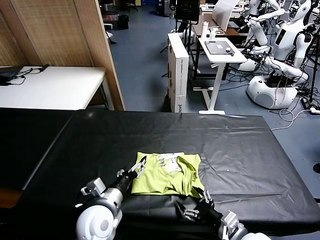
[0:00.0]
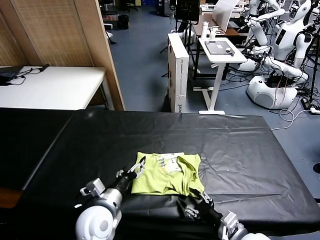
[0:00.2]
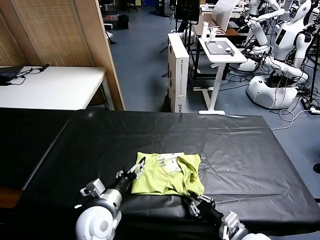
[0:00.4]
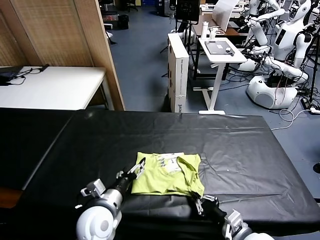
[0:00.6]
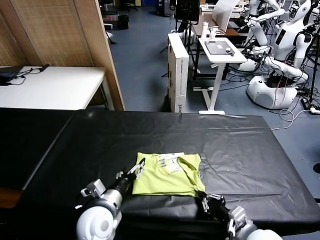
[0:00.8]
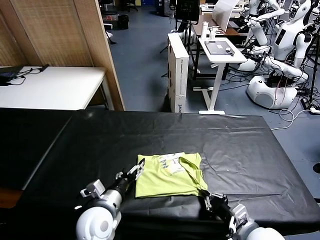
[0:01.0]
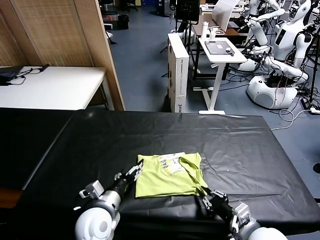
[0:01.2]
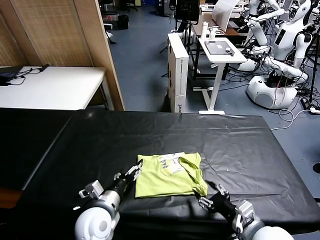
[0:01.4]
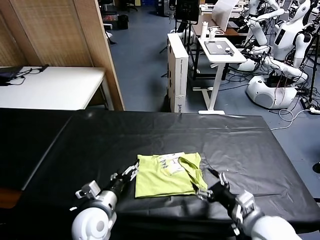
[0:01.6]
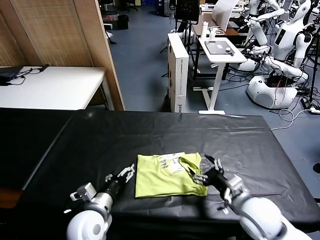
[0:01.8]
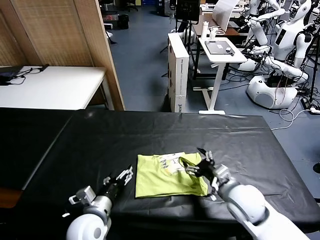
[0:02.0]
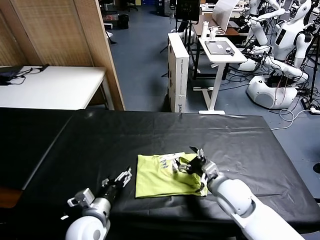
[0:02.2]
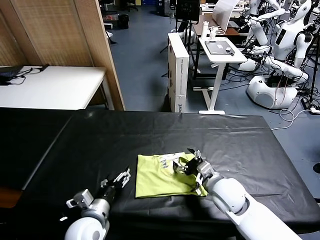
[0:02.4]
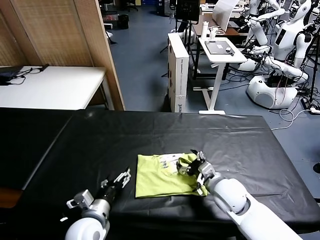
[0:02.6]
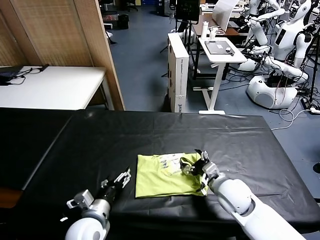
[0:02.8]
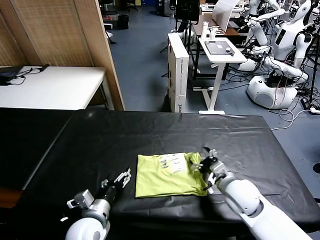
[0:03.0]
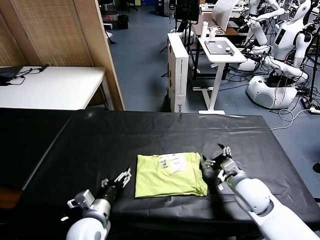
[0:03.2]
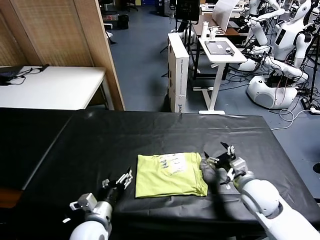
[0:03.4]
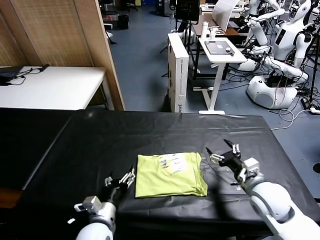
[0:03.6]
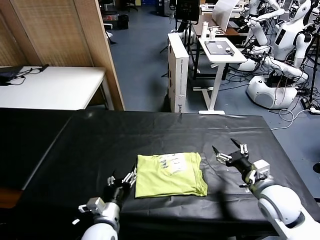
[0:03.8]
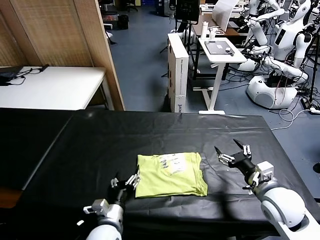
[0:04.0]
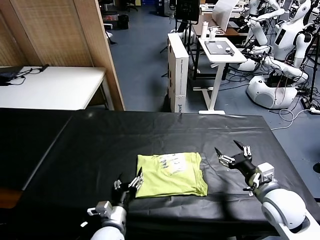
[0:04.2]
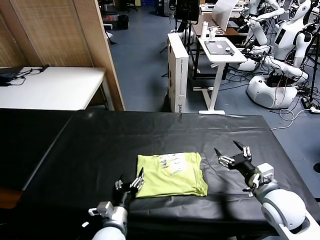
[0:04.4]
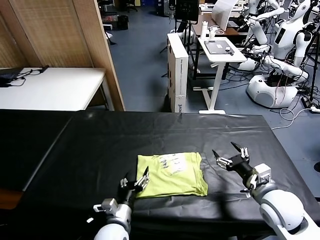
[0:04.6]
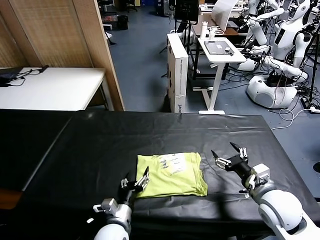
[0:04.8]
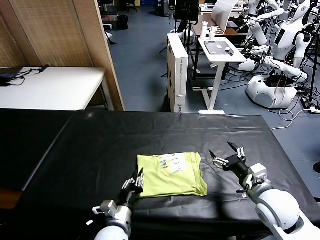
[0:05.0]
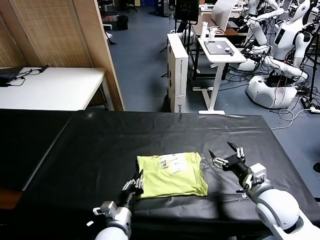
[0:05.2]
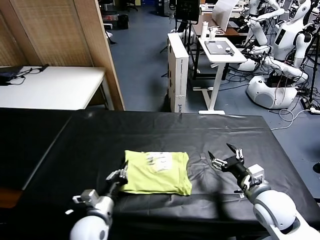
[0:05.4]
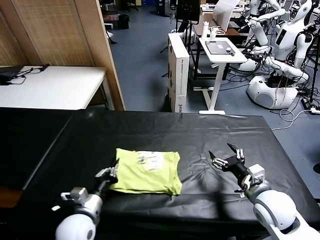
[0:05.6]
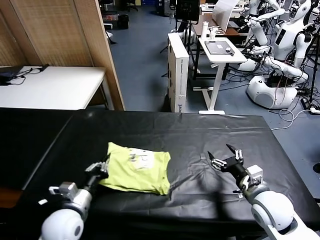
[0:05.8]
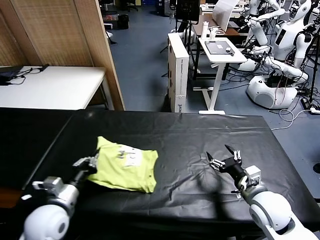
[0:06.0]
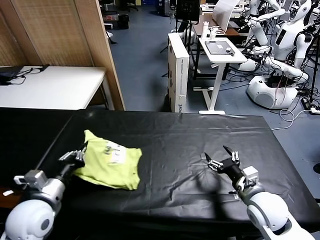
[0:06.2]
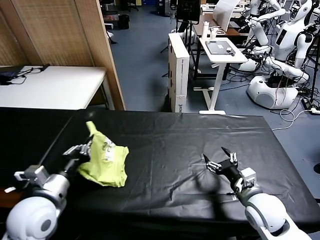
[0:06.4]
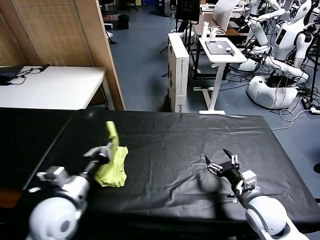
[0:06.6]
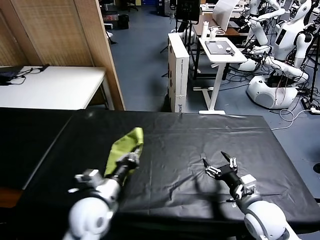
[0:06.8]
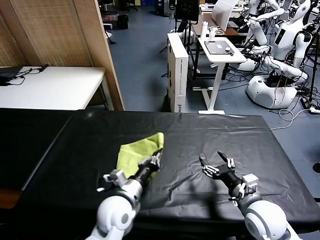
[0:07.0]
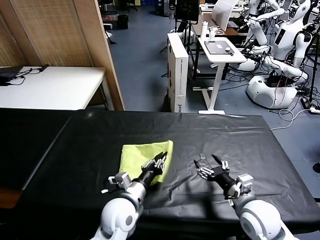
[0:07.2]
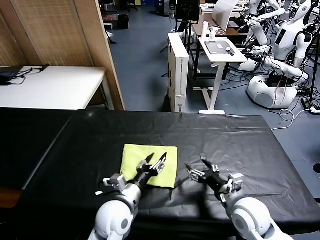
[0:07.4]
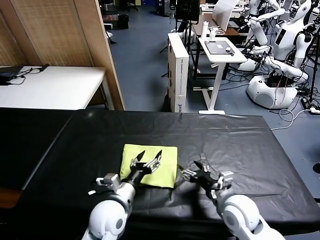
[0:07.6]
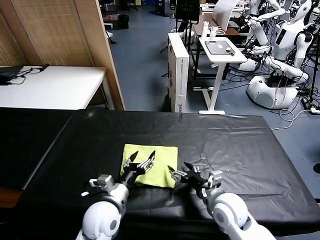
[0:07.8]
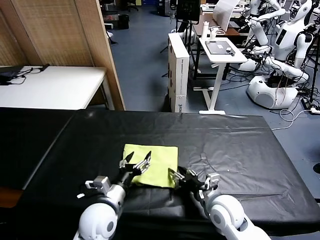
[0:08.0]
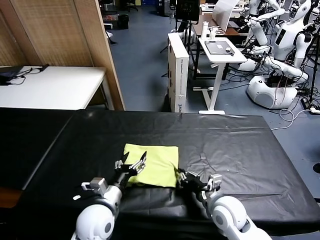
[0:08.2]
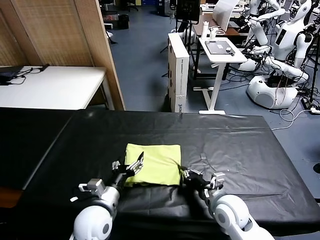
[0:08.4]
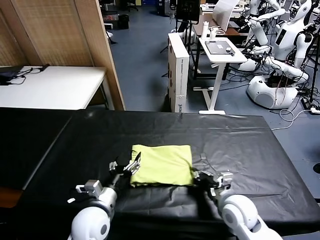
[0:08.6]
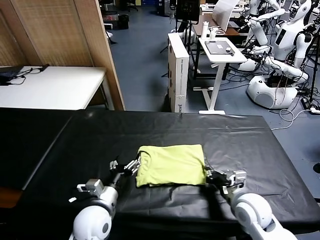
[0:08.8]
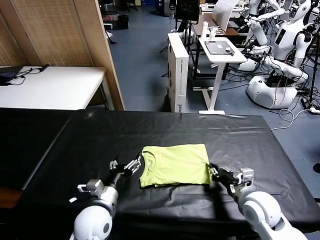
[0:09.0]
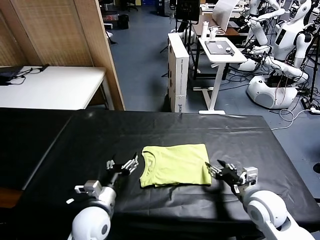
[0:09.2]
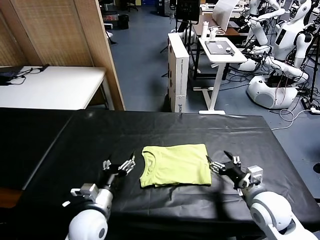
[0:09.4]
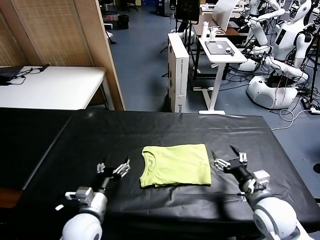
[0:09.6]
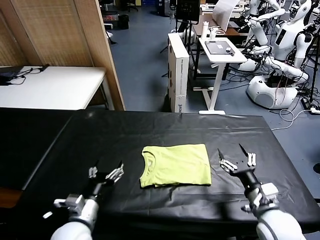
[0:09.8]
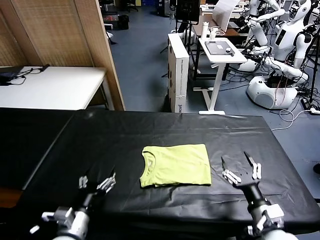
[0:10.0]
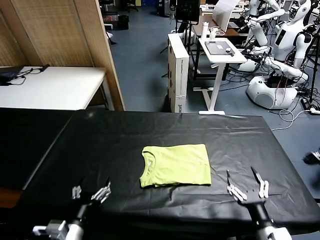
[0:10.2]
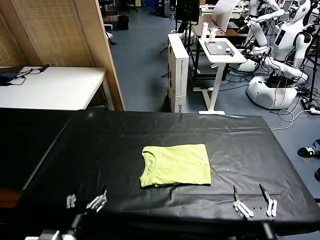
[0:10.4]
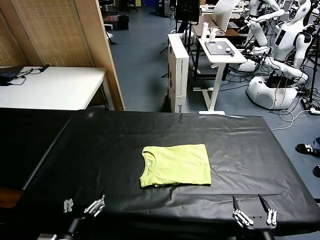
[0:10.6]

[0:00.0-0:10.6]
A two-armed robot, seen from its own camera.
Task of the whole recording: fold and organize the clothes.
Step, 0:00.0 to 0:07.2: Flip the folded clothes over with left gripper.
Step, 0:07.4 to 0:09.2: Drag the clothes to the center of the table.
0:00.0 to 0:01.6: The right gripper heads forward and upward, covering about 10 cm, and opens its fingers.
0:01.6 to 0:03.0: The right gripper is displaced forward by approximately 5 cm.
0:03.0 to 0:04.6: The left gripper travels downward and to the right by some 10 cm, and closes. The right gripper goes roughly 5 cm backward.
0:04.6 to 0:06.0: The left gripper shifts approximately 20 cm to the left and upward.
0:06.0 to 0:07.6: The right gripper shifts some 5 cm to the left. Meanwhile the left gripper shifts some 15 cm to the right, and opens up.
0:07.6 to 0:09.0: The right gripper heads to the right, covering approximately 5 cm, and closes.
0:09.0 to 0:10.6: The two grippers go approximately 20 cm backward. The right gripper opens.
